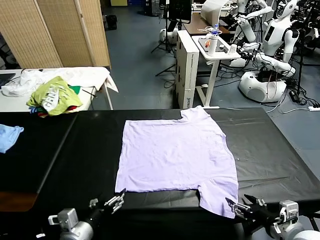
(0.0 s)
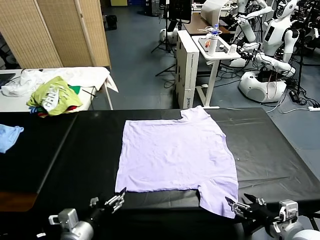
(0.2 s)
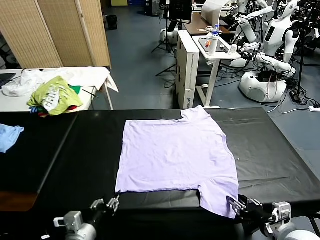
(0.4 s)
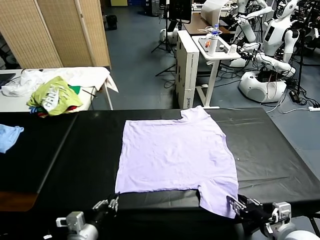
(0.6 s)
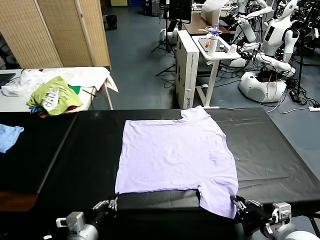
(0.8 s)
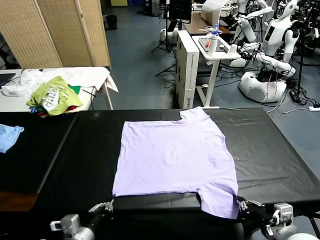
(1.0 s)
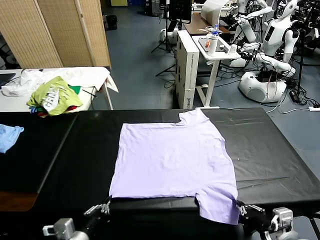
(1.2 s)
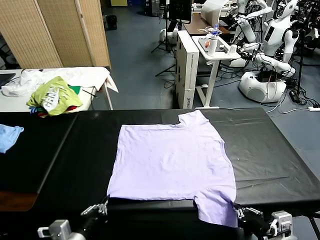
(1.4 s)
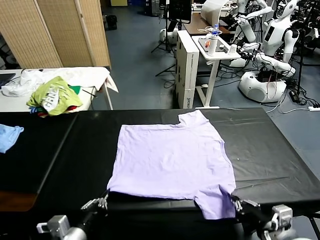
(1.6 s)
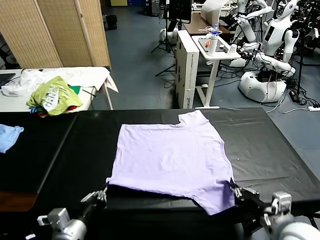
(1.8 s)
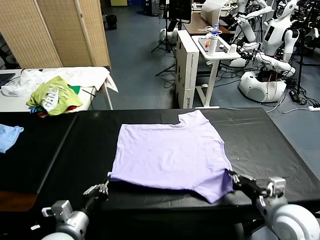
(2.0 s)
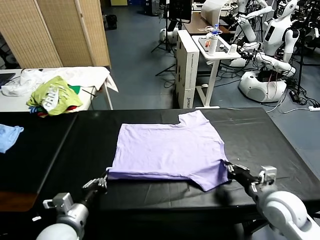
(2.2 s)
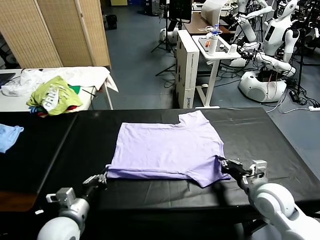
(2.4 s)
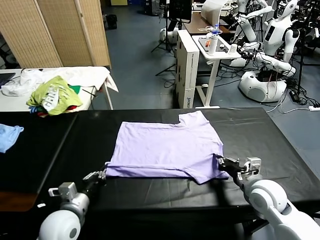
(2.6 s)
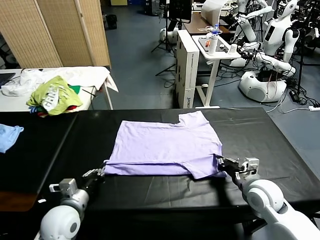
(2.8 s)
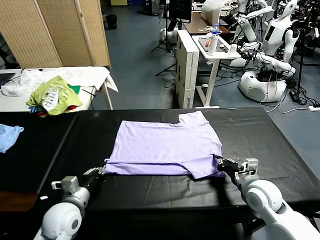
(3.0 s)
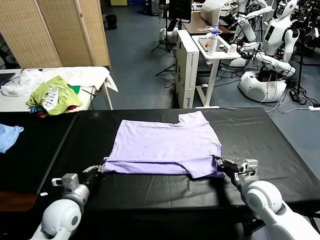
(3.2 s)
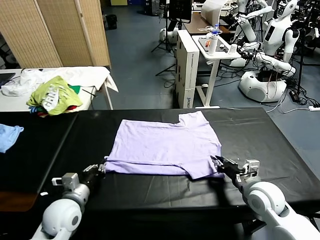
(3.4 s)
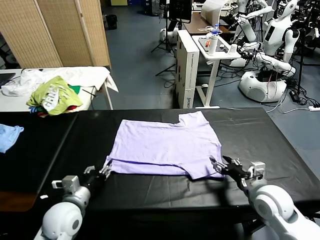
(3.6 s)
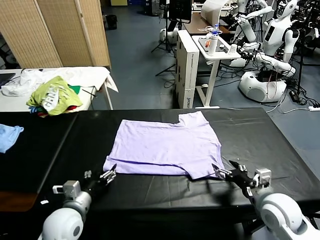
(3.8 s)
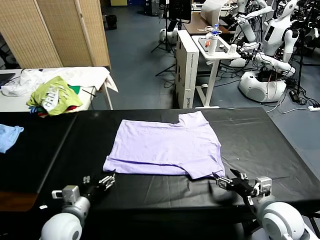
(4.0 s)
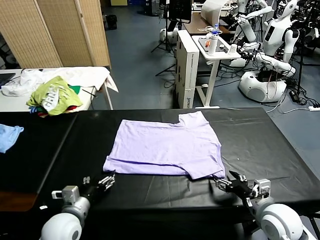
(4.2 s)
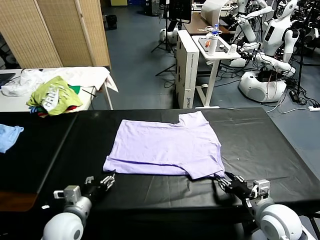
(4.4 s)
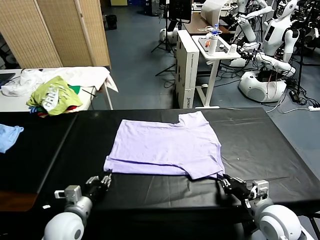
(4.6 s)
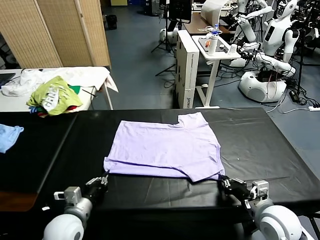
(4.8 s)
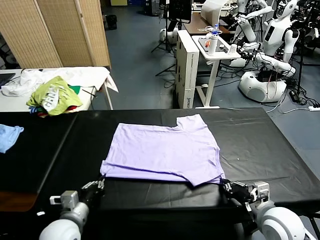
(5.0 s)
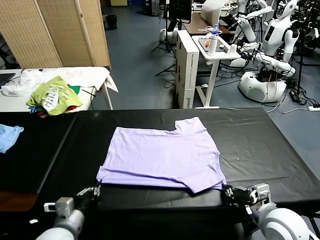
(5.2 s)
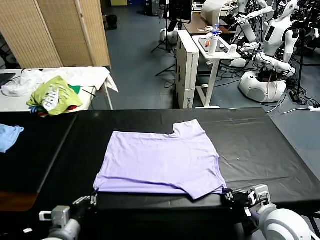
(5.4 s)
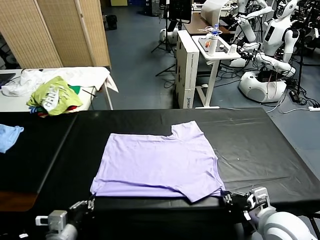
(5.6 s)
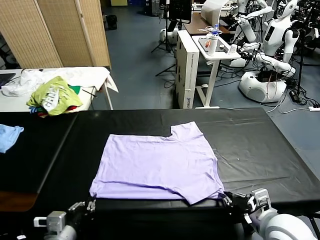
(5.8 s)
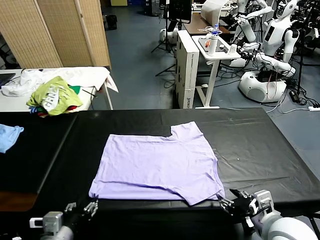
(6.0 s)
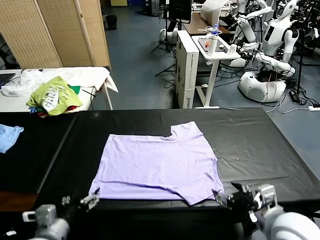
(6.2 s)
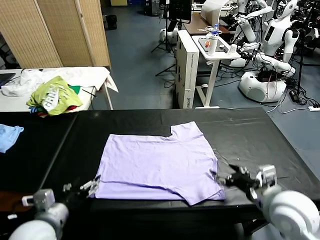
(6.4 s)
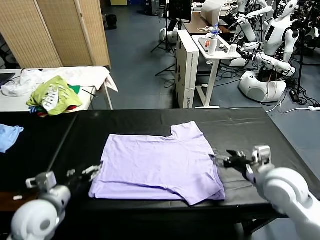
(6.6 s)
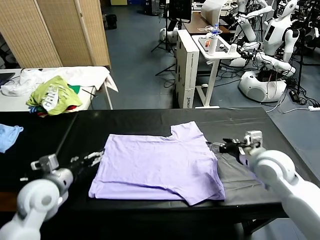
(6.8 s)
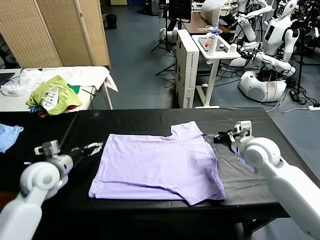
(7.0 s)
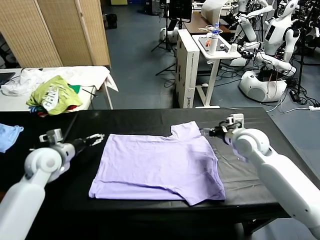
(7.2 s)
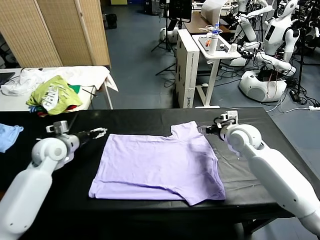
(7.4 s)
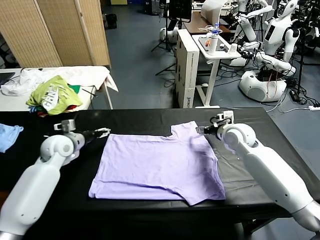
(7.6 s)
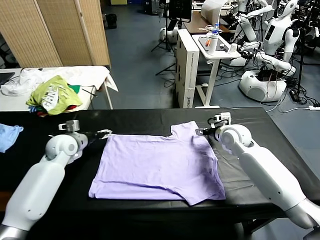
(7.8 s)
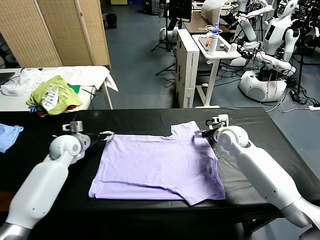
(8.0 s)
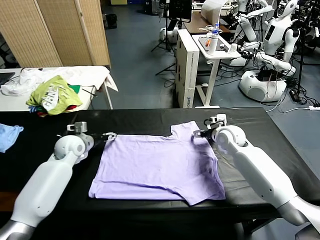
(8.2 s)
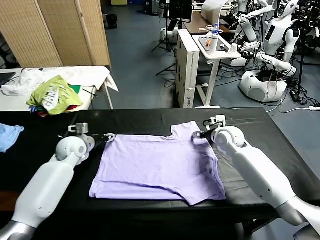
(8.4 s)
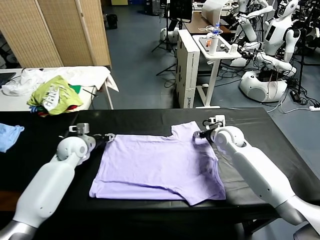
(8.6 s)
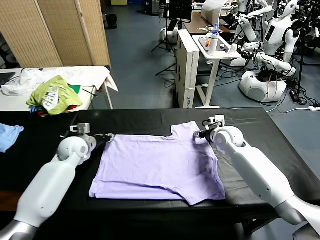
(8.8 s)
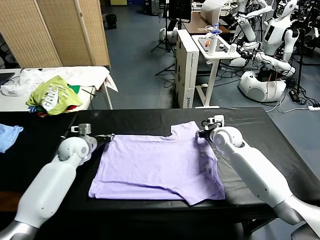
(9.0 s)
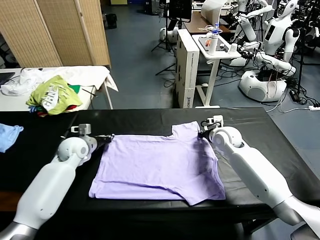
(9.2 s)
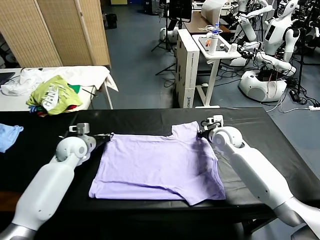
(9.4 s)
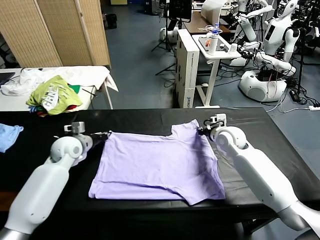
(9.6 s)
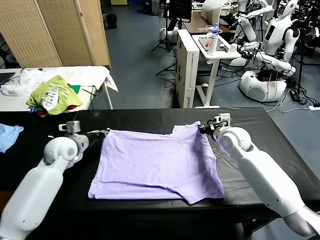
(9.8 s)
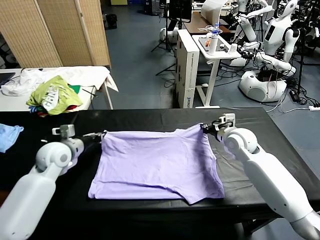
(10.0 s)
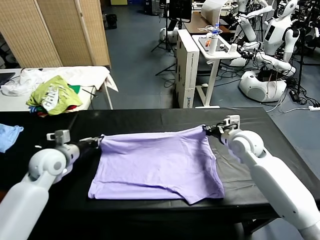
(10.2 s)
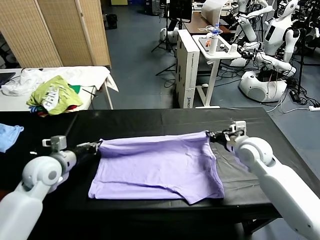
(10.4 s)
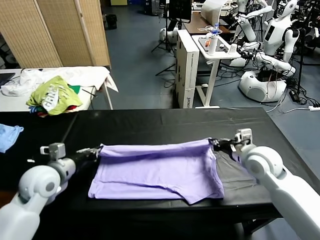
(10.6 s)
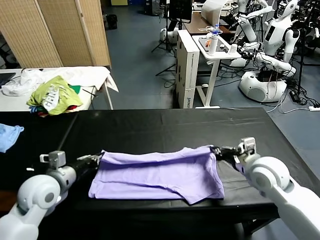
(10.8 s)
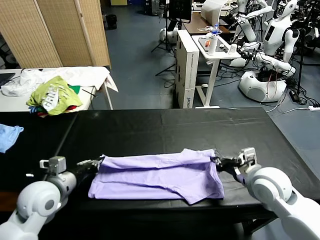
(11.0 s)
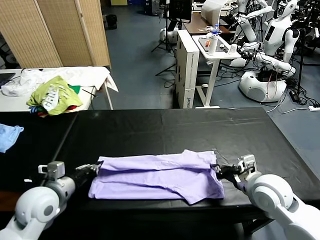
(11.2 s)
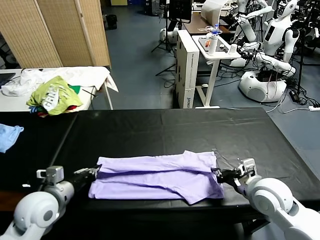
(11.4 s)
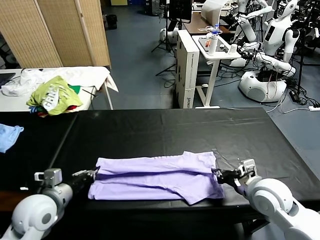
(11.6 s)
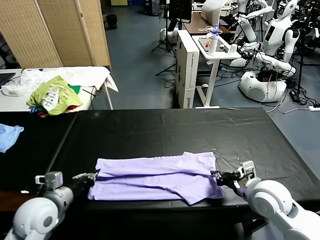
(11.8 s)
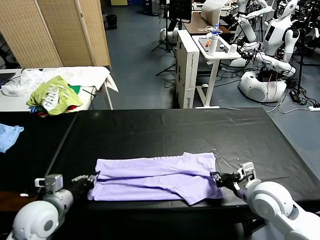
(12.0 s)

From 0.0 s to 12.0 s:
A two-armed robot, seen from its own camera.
Task of the whole recording: fold and organize the clothes.
Step, from 0.0 s to 1.0 s: use both grippers simultaneously to clamp the lower edge of the clothing fabric.
Step, from 1.2 s to 3.6 s: use both grippers to drag the lower edge of the fabric forward and fold it over the upper edge.
Step, from 3.8 s to 6.0 s: Drag the clothes downward with both gripper.
Step, from 6.2 s to 9.4 s: use both grippers simultaneously to clamp the upper edge of the clothing fabric.
From 1.6 s to 3.0 s: The left gripper moves forward, about 5 cm. Meanwhile the right gripper opens its fingers.
From 3.0 s to 4.4 s: The right gripper shifts approximately 5 cm backward, and closes its fingers. The left gripper opens up.
From 4.4 s to 6.0 s: The left gripper travels backward by roughly 10 cm, and closes. The right gripper shifts some 10 cm upward, and opens.
From 6.0 s to 7.6 s: The left gripper moves forward and to the left, roughly 20 cm, and opens. The right gripper shifts approximately 25 cm forward.
From 7.6 s to 9.0 s: The left gripper goes some 15 cm forward and downward, and closes; the right gripper closes up.
From 9.0 s to 10.4 s: The left gripper heads backward, covering approximately 5 cm, and closes. The right gripper moves backward, some 15 cm.
From 10.4 s to 12.0 s: The left gripper is displaced backward by approximately 15 cm; the right gripper is displaced backward by some 5 cm, and opens its fingers.

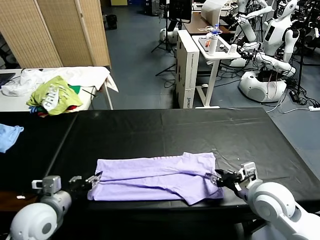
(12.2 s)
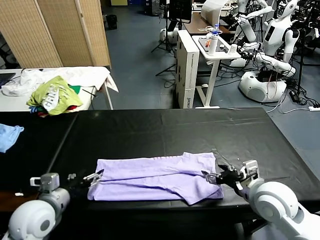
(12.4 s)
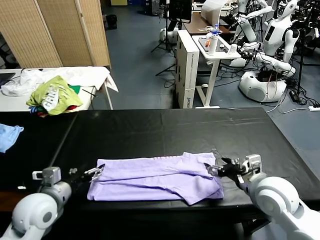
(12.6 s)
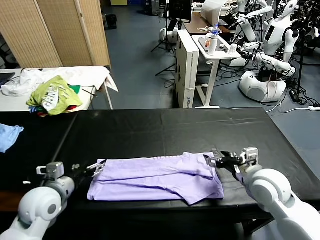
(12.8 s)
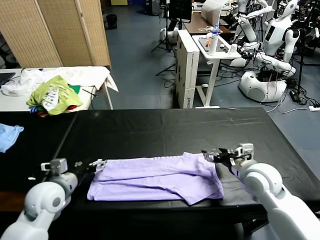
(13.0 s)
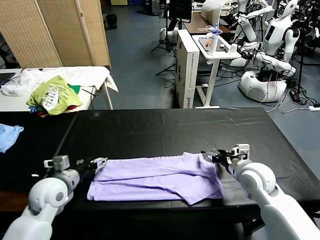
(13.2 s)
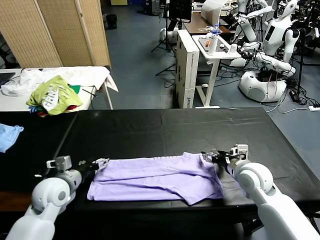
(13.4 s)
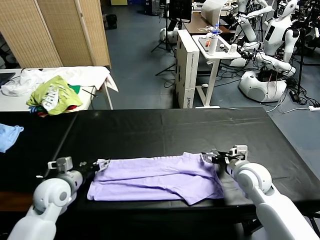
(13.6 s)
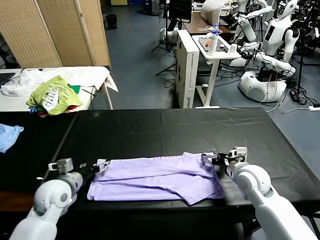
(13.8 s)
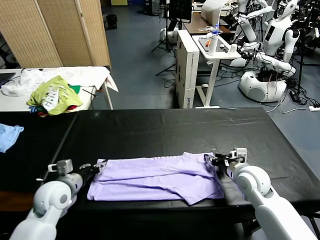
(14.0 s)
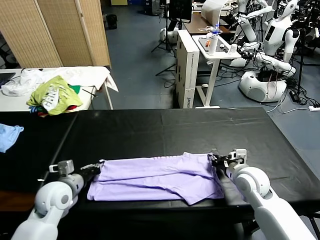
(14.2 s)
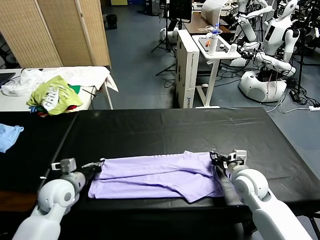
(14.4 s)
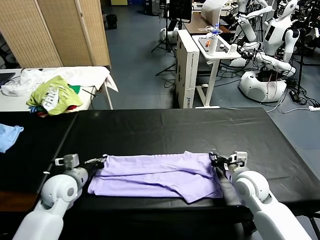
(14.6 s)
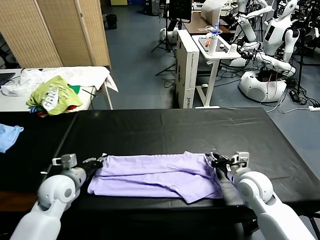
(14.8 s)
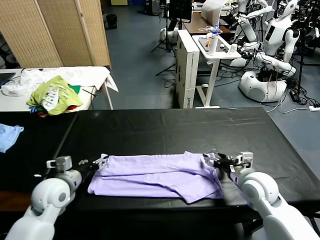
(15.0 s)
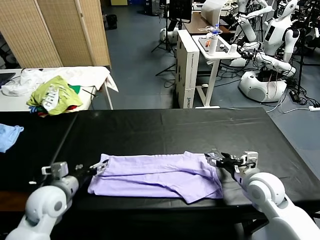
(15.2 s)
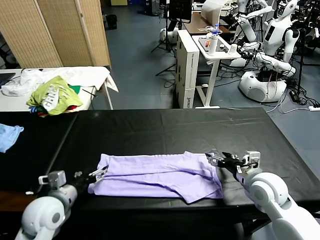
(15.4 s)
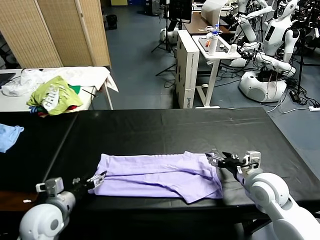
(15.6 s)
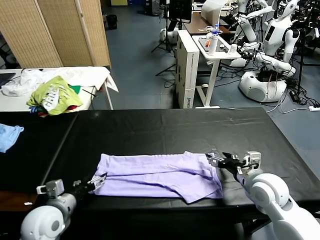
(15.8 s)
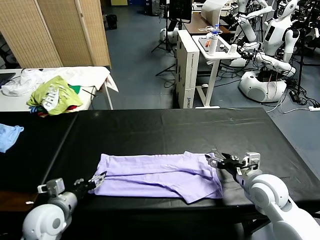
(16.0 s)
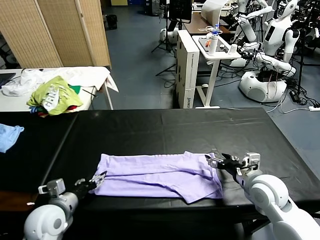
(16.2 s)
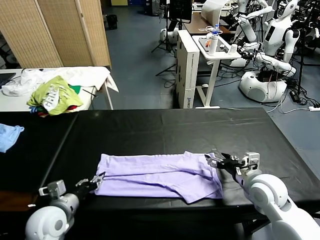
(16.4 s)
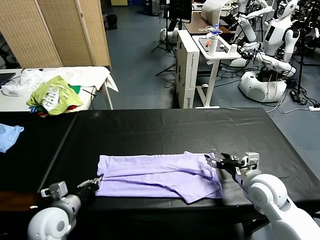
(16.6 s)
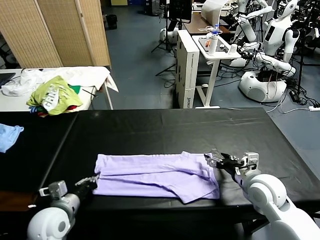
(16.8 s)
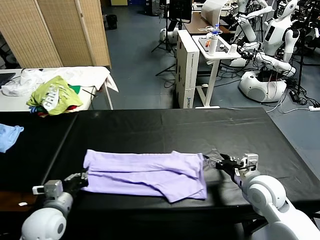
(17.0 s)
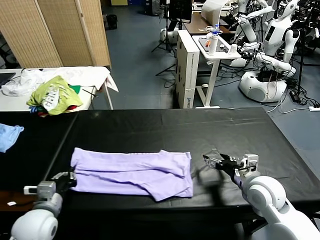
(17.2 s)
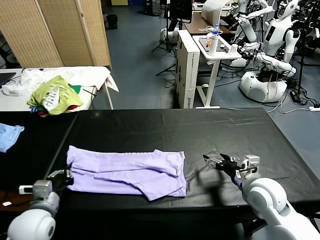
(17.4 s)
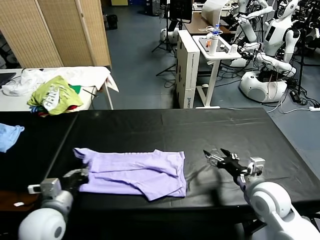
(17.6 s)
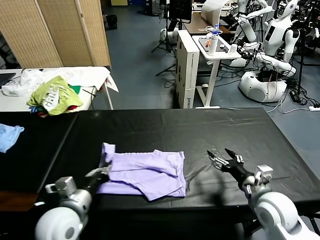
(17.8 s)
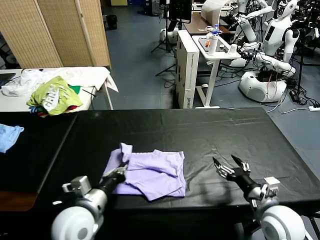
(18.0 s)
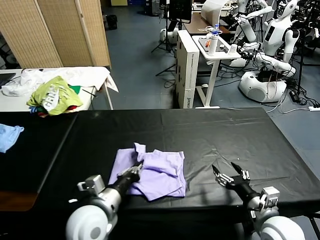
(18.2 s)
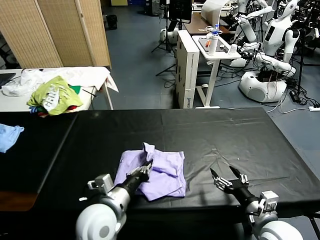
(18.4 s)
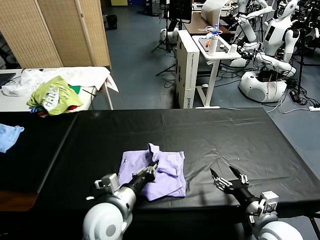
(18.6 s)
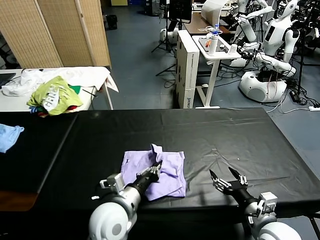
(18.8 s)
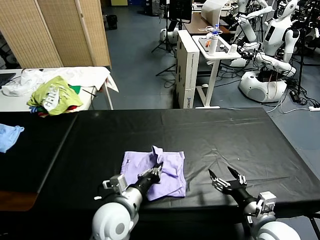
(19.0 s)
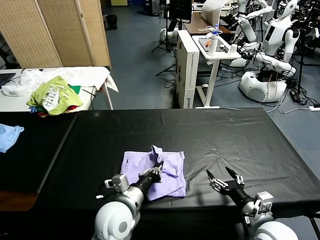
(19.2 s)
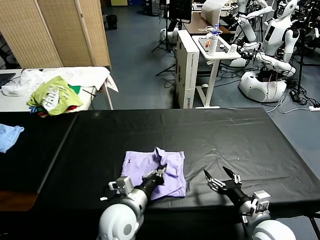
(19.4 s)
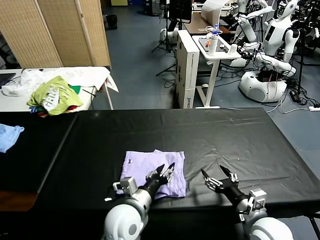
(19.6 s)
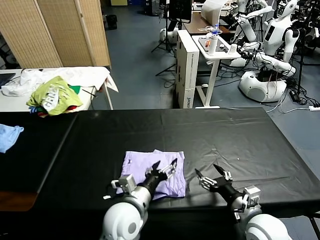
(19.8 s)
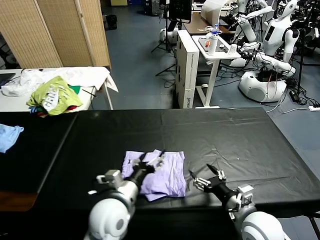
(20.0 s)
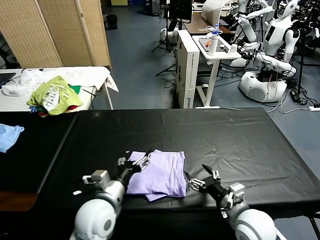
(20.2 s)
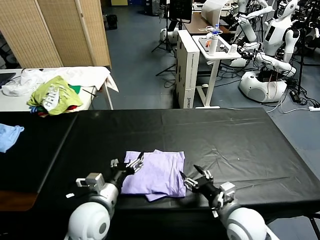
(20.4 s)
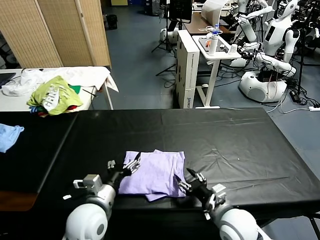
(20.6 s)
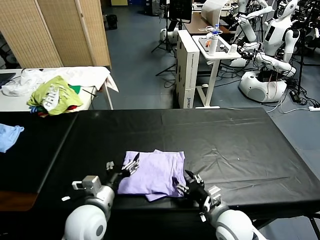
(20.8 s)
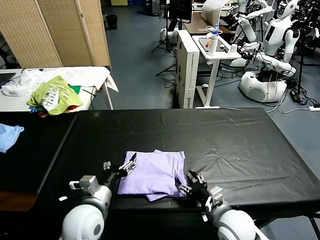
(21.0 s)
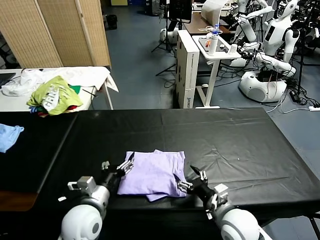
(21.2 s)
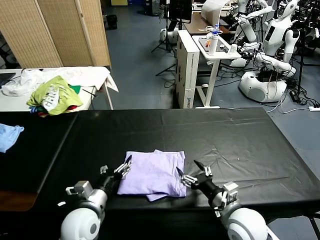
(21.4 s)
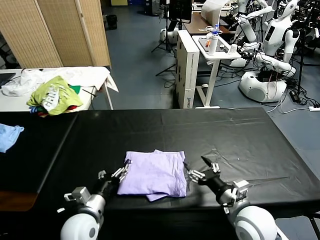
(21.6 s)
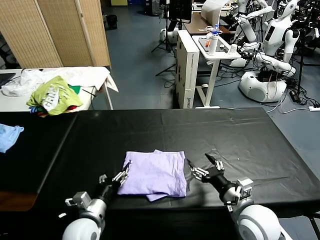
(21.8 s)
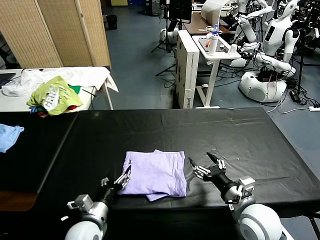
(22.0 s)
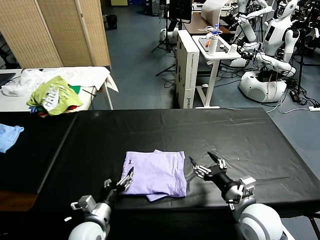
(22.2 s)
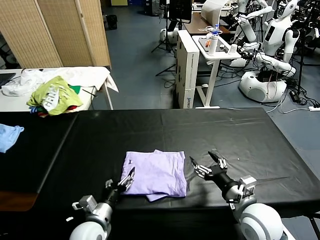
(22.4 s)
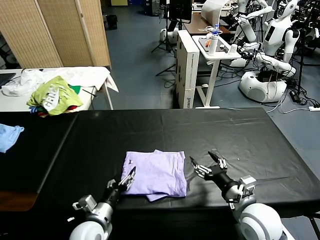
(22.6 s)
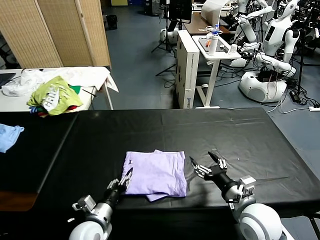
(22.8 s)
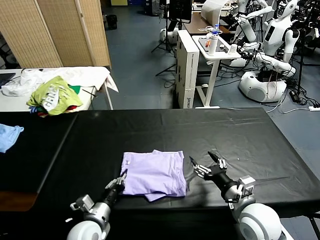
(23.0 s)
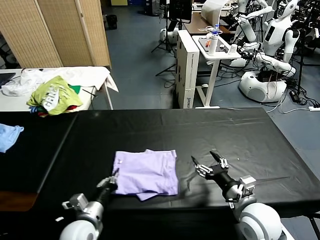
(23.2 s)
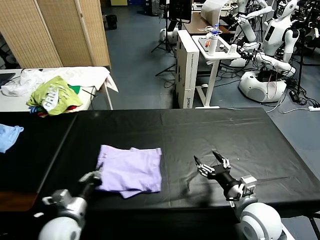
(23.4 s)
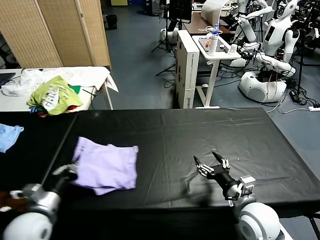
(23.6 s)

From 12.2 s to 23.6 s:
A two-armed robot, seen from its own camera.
Task of the whole recording: fold and organize the clothes.
Step, from 12.4 s to 16.6 s: use the left gripper to clamp the left edge of the fabric.
Step, from 16.8 s to 19.6 s: use the left gripper to drag the left edge of the fabric to the left and folds it over the right edge.
From 12.2 s to 13.6 s: The right gripper shifts roughly 10 cm forward and downward, while the left gripper shifts some 5 cm forward, and opens its fingers.
From 13.6 s to 15.0 s: The right gripper changes place by some 5 cm, and closes, then reopens; the left gripper closes up.
From 15.0 s to 16.4 s: The left gripper is displaced backward by some 10 cm, and opens.
From 16.4 s to 17.8 s: The right gripper heads backward, covering roughly 10 cm. The left gripper closes up.
From 17.8 s to 19.4 s: The left gripper travels to the right by some 20 cm.
From 19.4 s to 20.8 s: Both grippers move to the left, about 5 cm. The left gripper opens its fingers.
From 20.8 s to 22.2 s: The left gripper is displaced downward by approximately 10 cm. Meanwhile the right gripper shifts about 5 cm upward and to the right.
From 22.2 s to 23.6 s: The left gripper shifts by about 5 cm, and closes.
